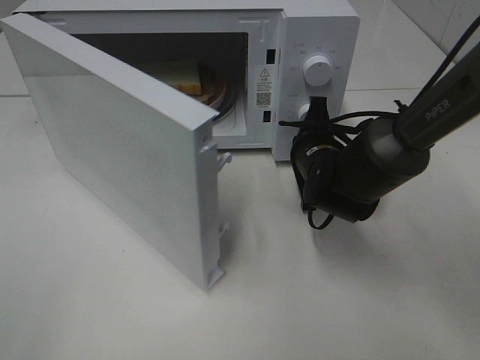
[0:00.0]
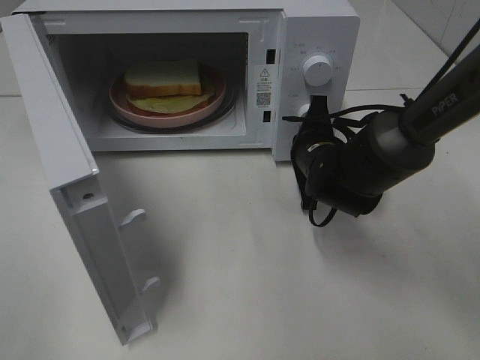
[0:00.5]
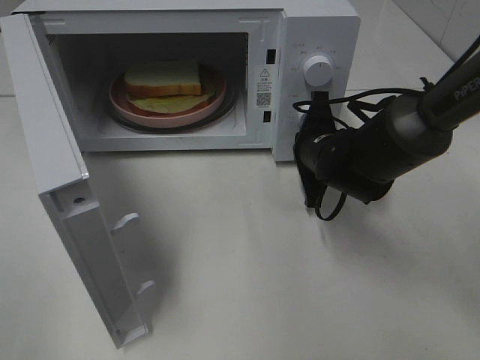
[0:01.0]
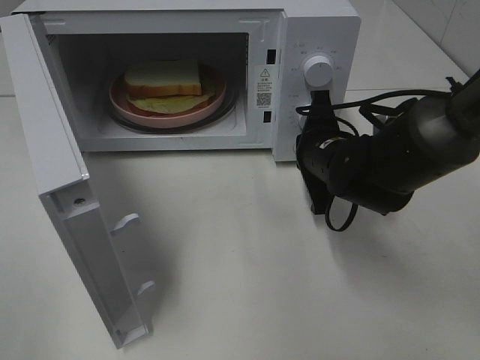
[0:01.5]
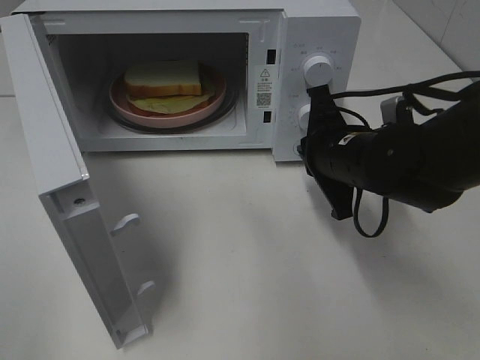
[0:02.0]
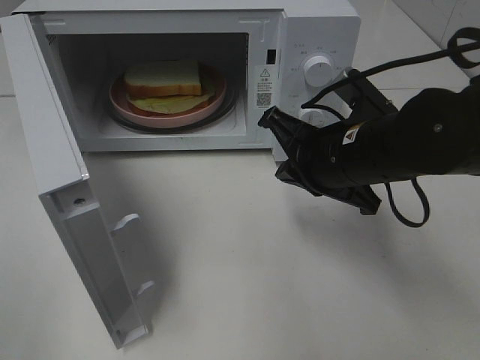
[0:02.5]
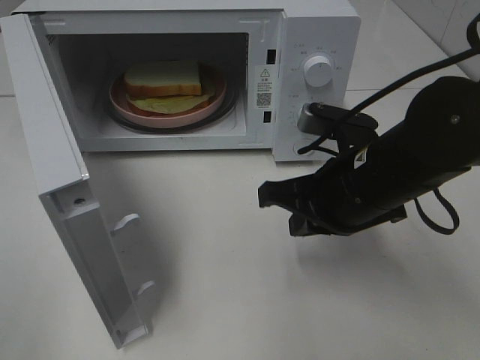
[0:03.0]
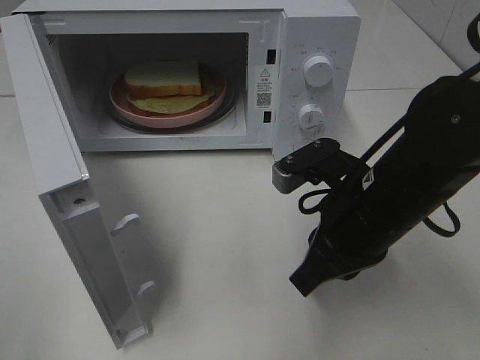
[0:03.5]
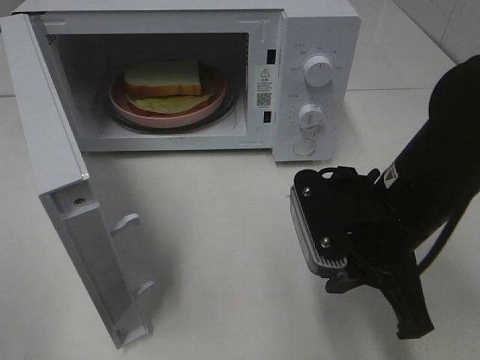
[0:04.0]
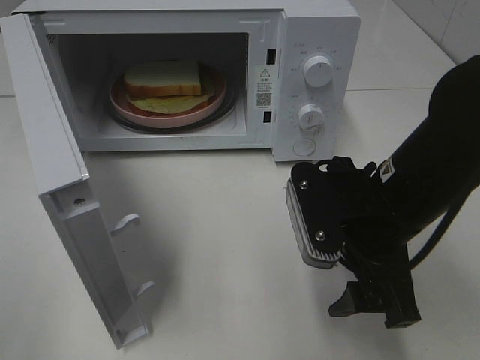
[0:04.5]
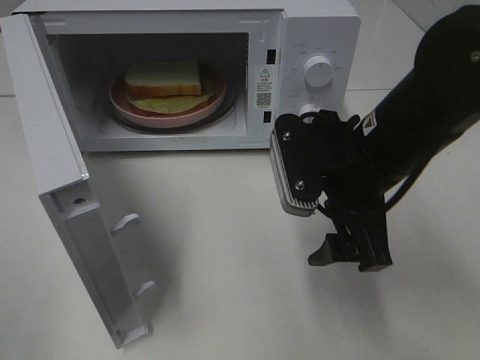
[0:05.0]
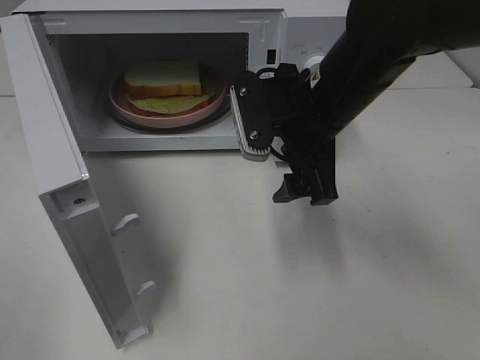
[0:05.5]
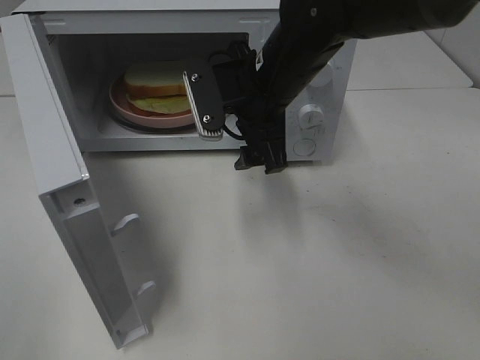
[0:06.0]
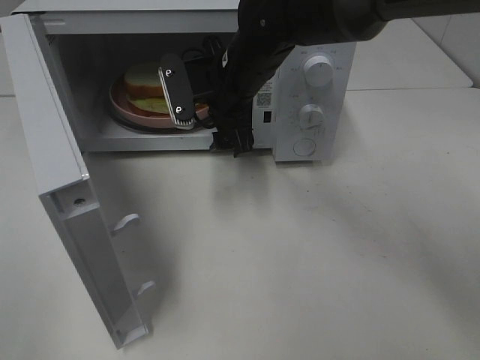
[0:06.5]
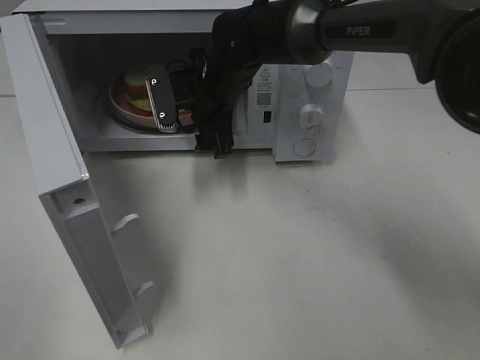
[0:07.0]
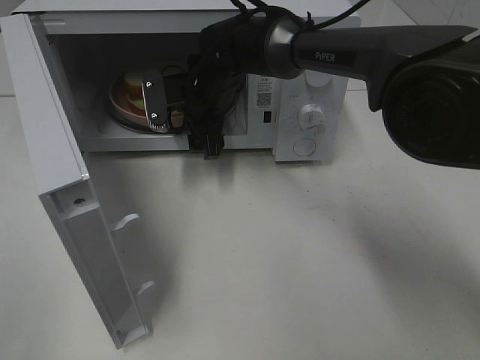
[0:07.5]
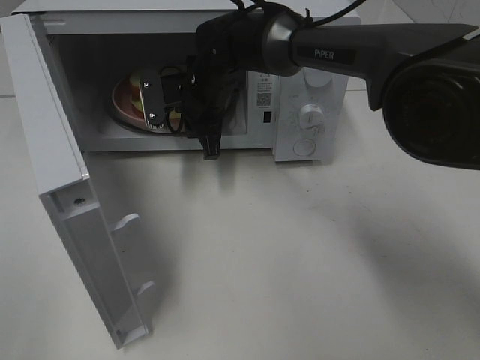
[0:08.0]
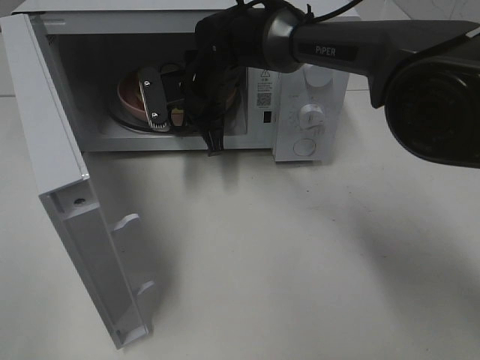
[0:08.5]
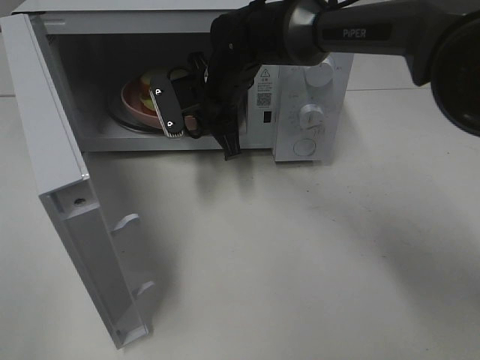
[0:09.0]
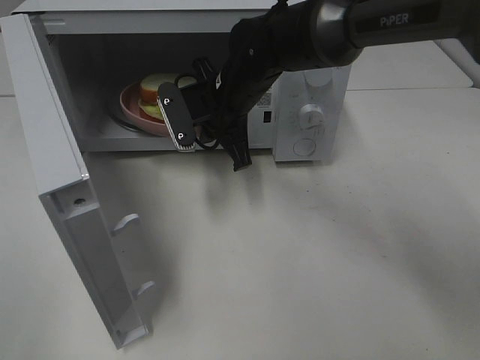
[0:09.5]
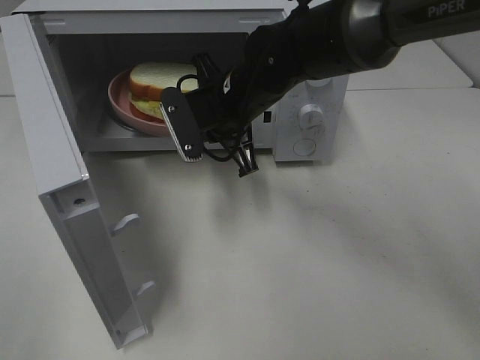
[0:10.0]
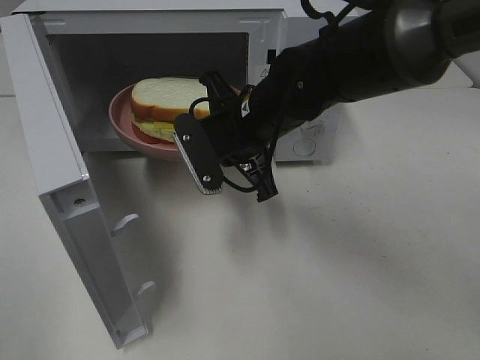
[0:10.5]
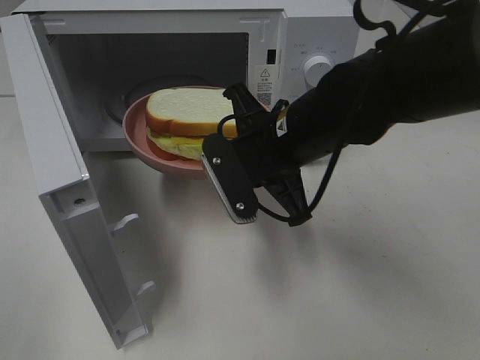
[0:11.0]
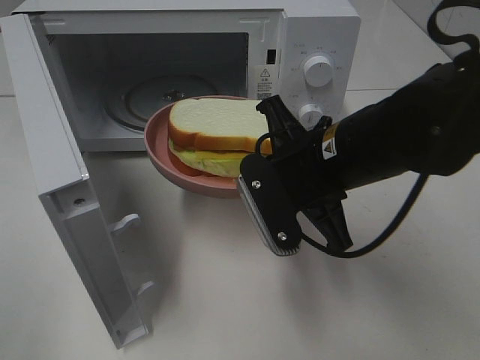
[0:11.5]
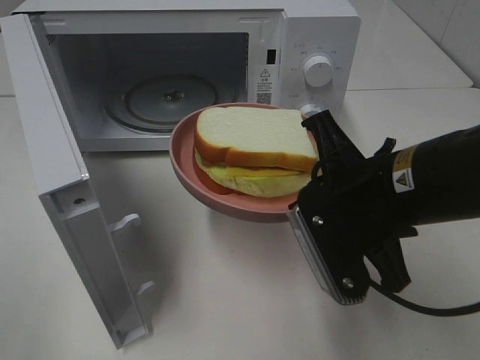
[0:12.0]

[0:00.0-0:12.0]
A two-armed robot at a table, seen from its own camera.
Task of the whole recording: Heat Sandwich.
Step, 0:02.0 to 0:08.0: Right hand: grab the plate with the sandwich.
0:00.0 to 0:02.0: The right gripper travels backward and upward by about 10 cm.
0:02.0 to 0:04.0: The right gripper goes roughly 10 cm backward.
0:04.0 to 0:06.0: The right gripper moves forward and to the left, some 15 cm, and opens.
0:06.0 to 0:08.0: The right gripper travels forward, to the left and downward by roughly 15 cm, and closes.
0:08.0 to 0:10.0: The right gripper is displaced backward by some 10 cm.
0:10.0 to 0:12.0: The right gripper moves backward and to the right, roughly 20 cm.

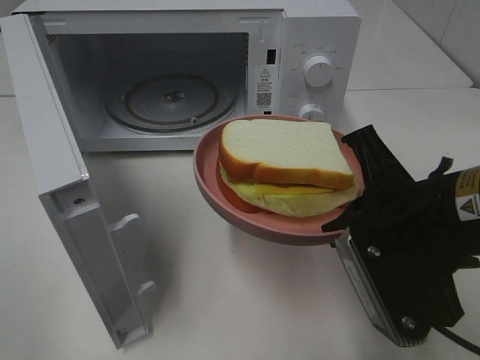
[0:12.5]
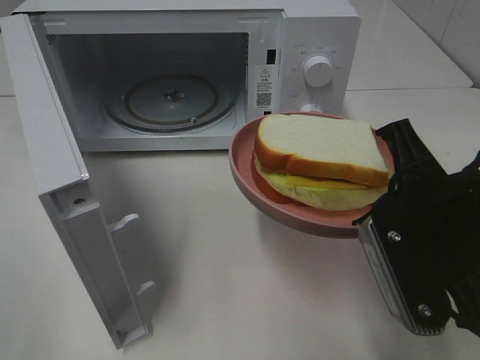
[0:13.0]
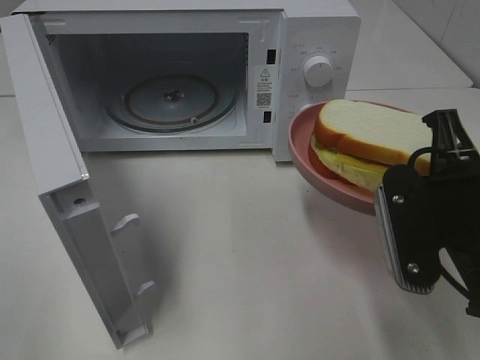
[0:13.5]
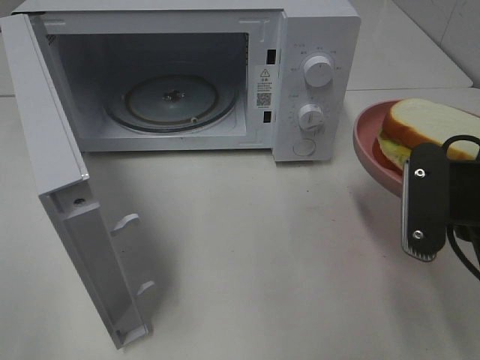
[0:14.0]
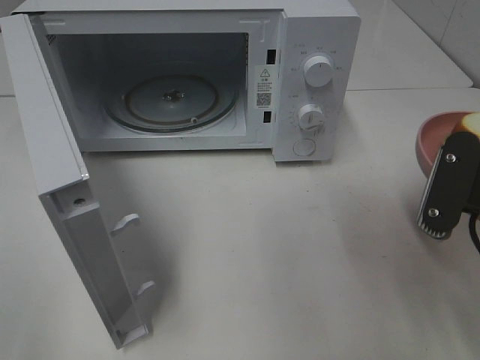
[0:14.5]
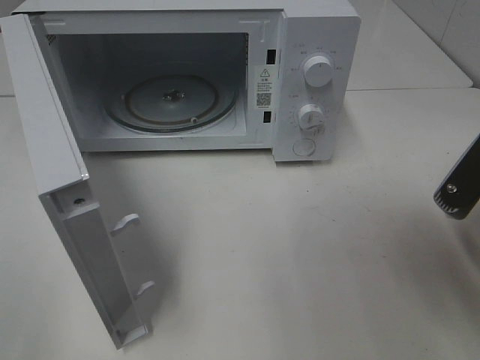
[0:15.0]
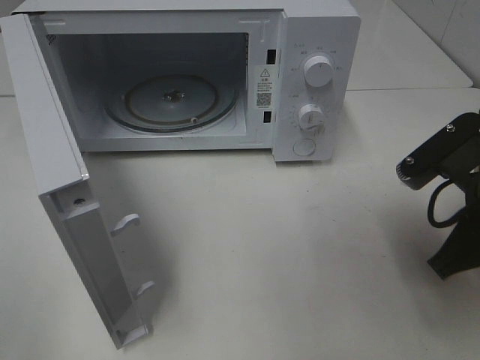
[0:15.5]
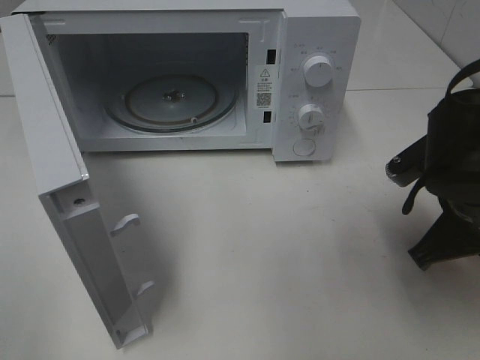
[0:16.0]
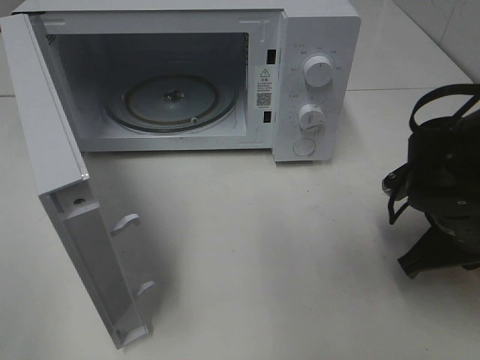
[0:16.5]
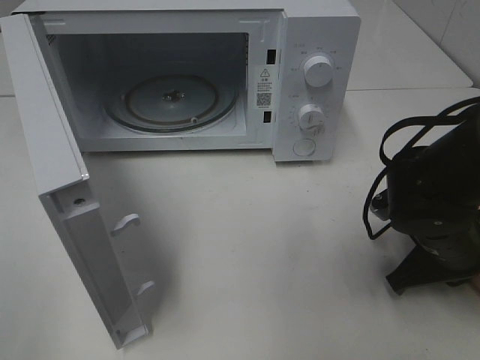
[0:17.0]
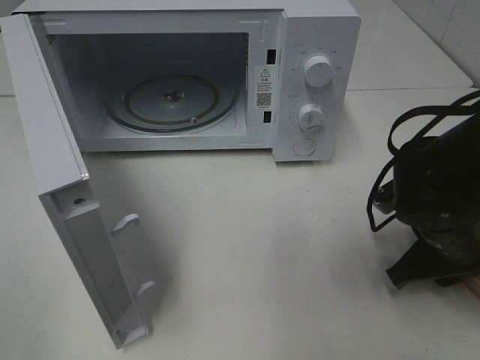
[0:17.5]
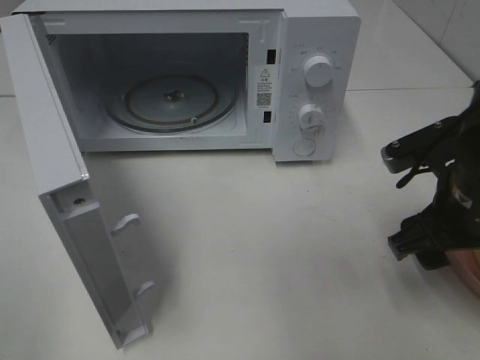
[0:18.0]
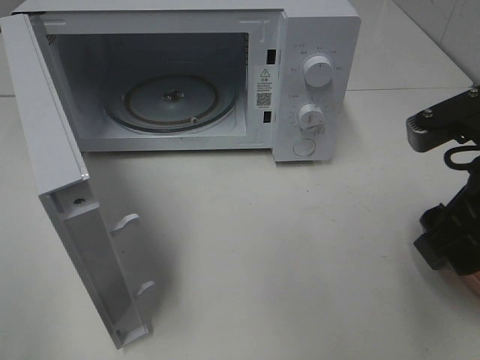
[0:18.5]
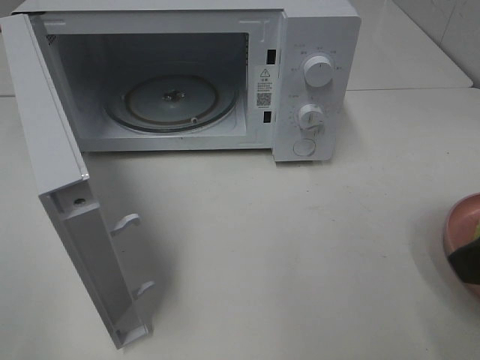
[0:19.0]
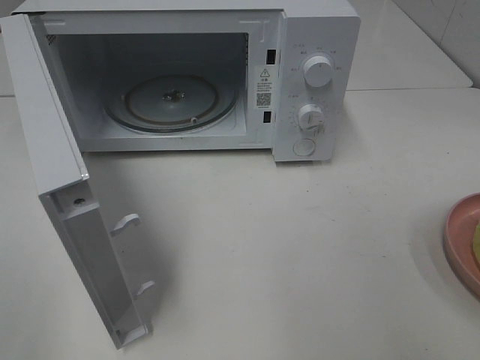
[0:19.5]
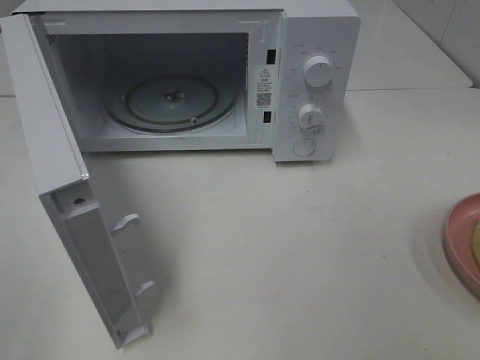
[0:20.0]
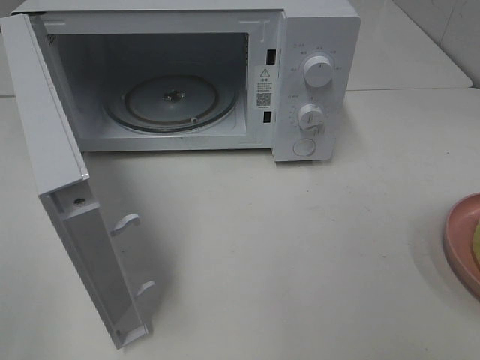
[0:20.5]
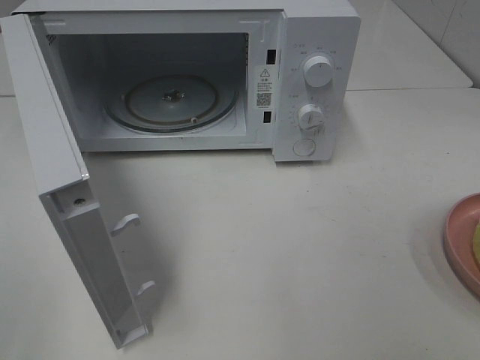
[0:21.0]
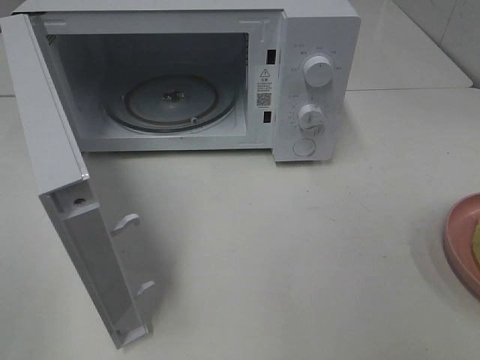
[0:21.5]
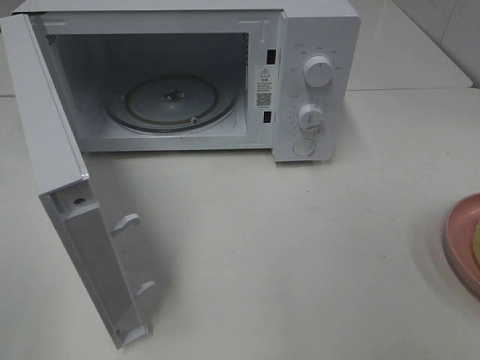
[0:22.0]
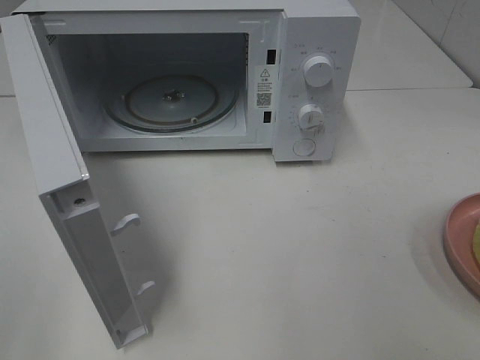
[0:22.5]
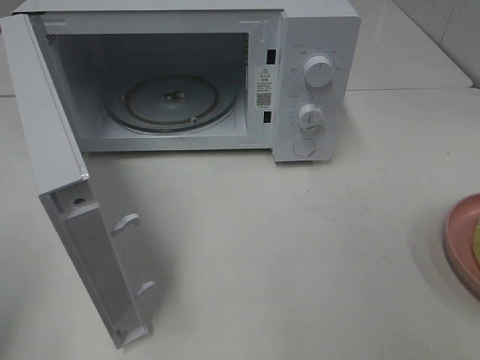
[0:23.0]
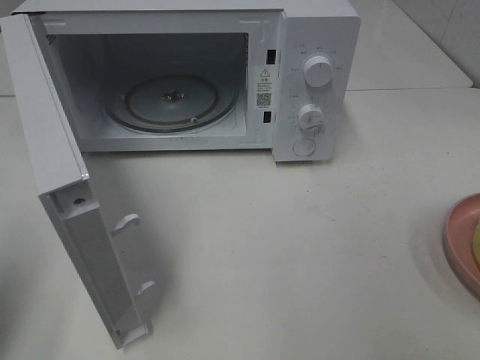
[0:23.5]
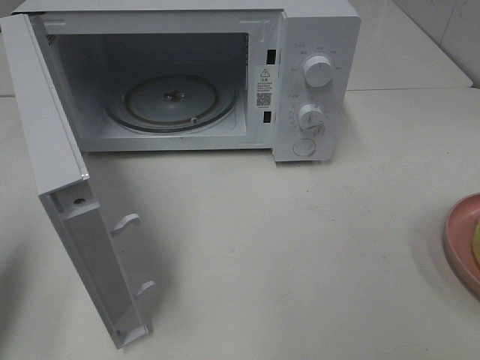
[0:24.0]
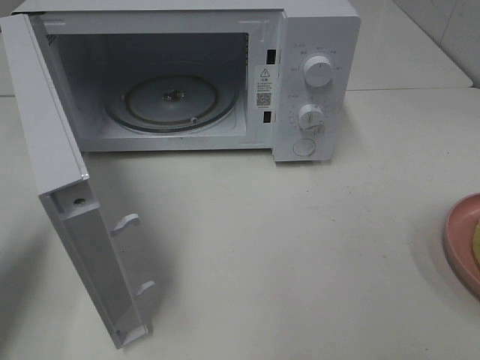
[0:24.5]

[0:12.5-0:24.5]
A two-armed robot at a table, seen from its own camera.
Task of the whole recording: Heat Sandwich.
Step, 0:12.5 to 0:18.5: Right hand: place the plate on the table.
0:12.5 to 0:14.5: The right gripper travels to the right by some 5 cm.
0:14.5 to 0:16.5: The right gripper heads downward and forward, covering approximately 10 cm.
0:16.5 to 0:18.5: The right gripper travels upward and backward by about 15 cm, and opens up.
0:18.5 to 0:20.5: The right gripper goes about 20 cm backward and to the right.
0:22.5 to 0:24.5: The left gripper goes approximately 20 cm forward and downward, and closes up.

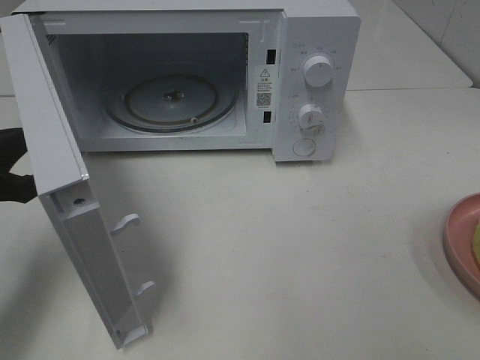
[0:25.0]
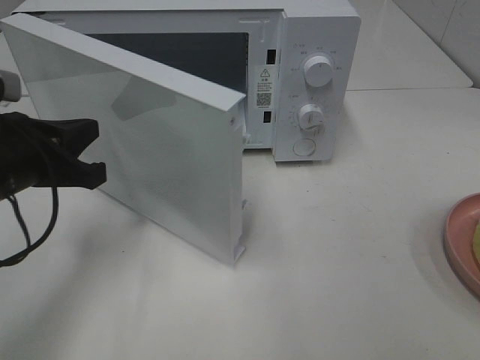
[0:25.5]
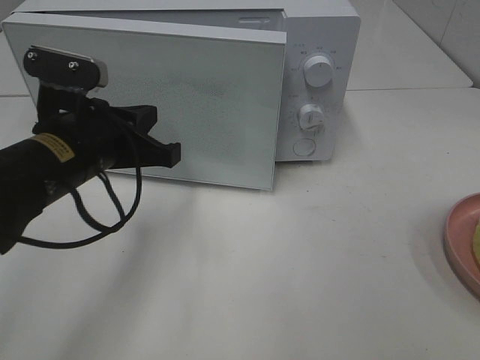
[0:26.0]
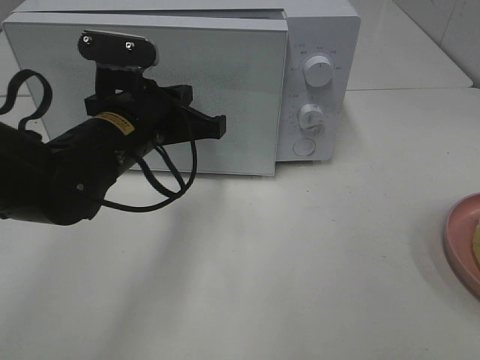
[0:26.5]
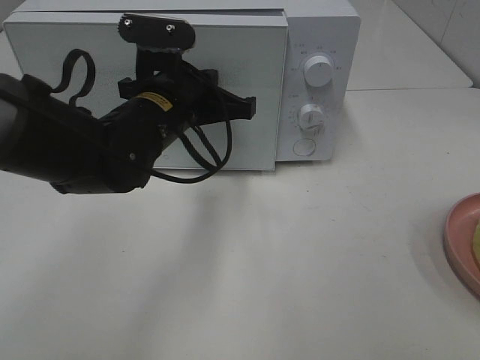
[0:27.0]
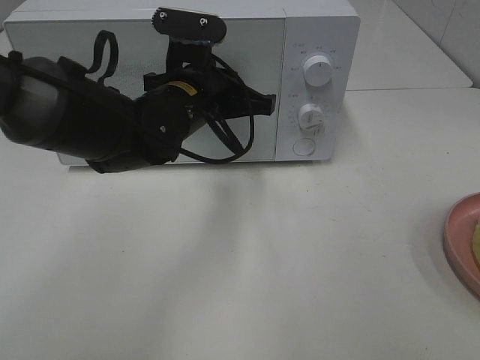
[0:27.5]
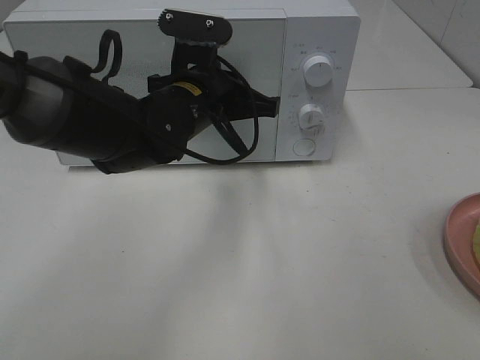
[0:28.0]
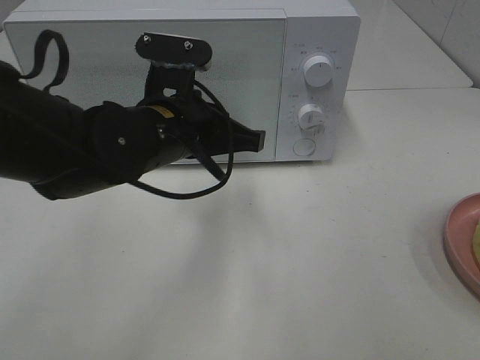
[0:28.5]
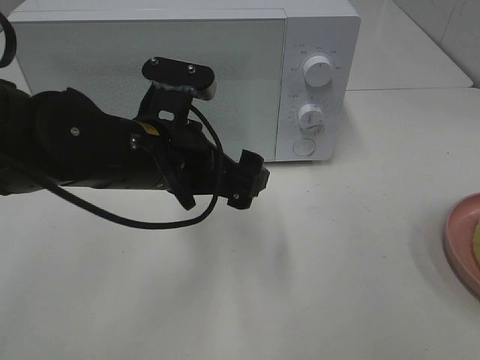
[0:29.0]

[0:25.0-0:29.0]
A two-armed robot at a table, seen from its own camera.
Task of the whole recording: Heat Sandwich.
Step, 0:25.0 to 0:28.5: Left hand: close the microwave door.
0:25.0 to 0:27.0: The left gripper travels to the right and forward by some 20 cm.
0:27.0 to 0:29.0: The left gripper is displaced backward by about 5 cm, and opens its fingers.
